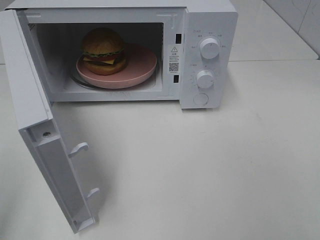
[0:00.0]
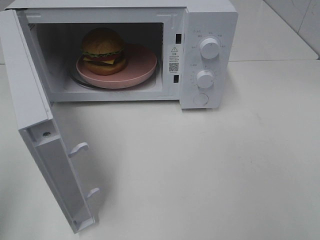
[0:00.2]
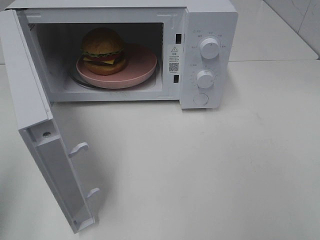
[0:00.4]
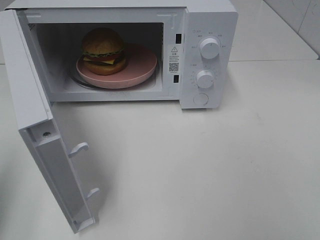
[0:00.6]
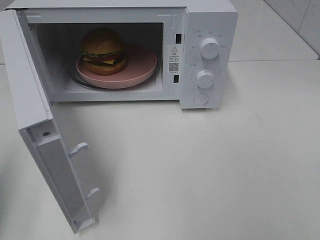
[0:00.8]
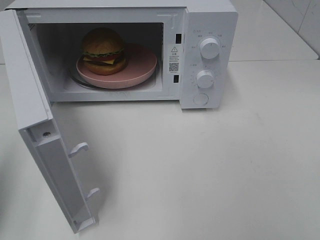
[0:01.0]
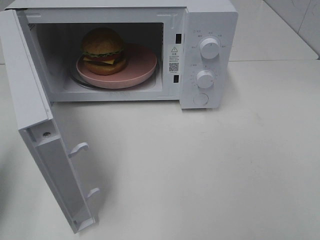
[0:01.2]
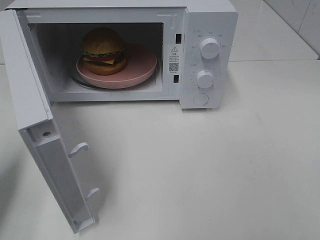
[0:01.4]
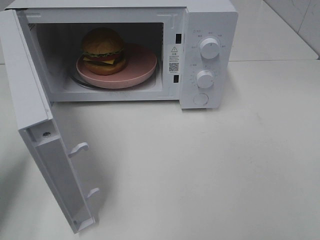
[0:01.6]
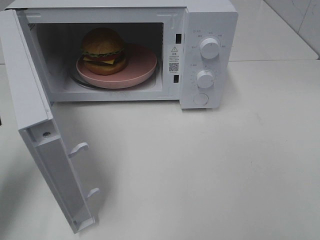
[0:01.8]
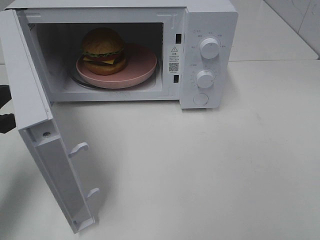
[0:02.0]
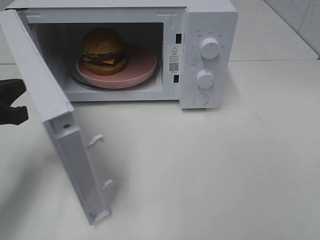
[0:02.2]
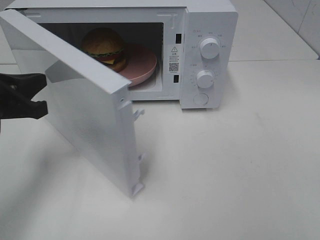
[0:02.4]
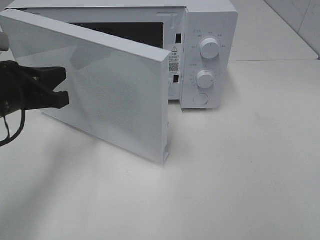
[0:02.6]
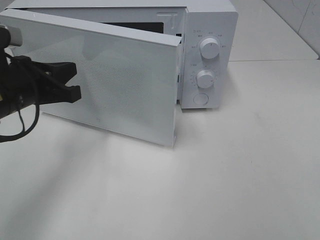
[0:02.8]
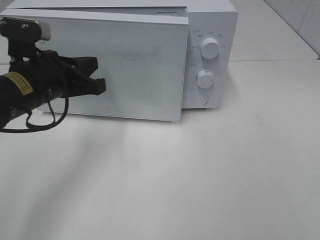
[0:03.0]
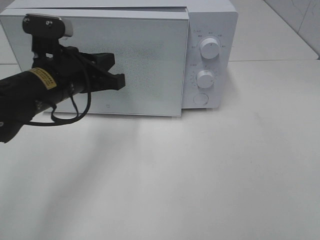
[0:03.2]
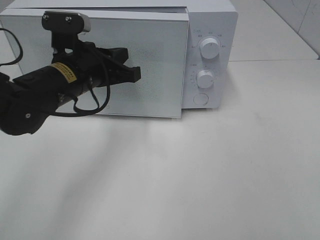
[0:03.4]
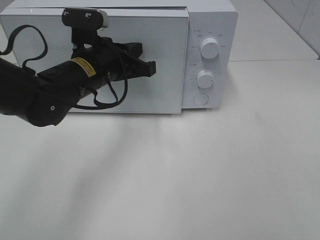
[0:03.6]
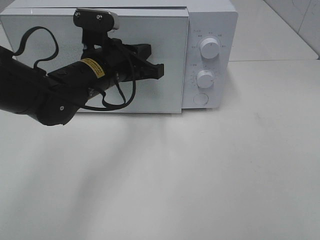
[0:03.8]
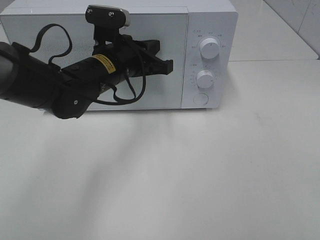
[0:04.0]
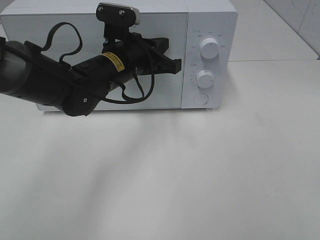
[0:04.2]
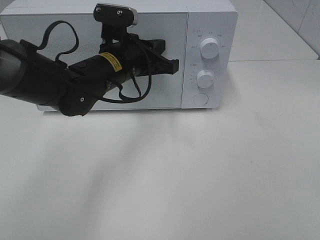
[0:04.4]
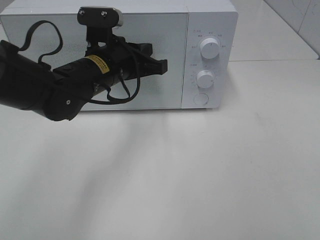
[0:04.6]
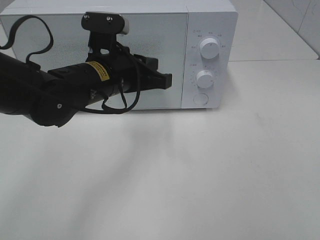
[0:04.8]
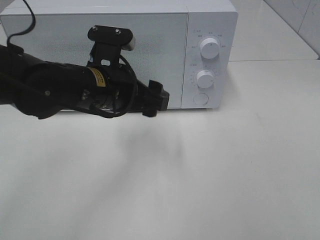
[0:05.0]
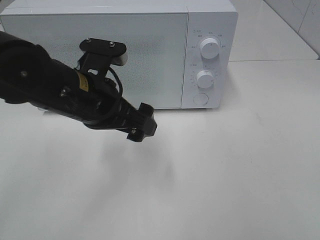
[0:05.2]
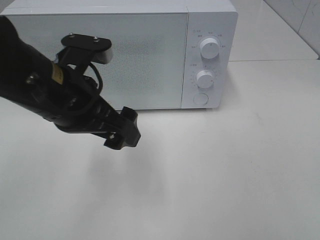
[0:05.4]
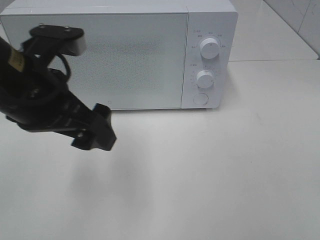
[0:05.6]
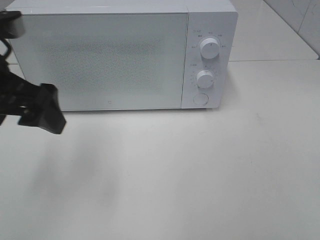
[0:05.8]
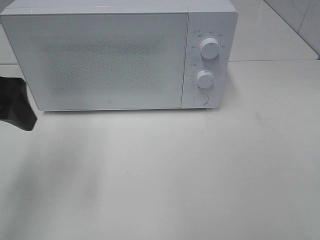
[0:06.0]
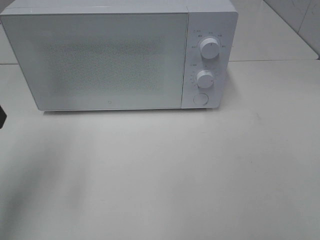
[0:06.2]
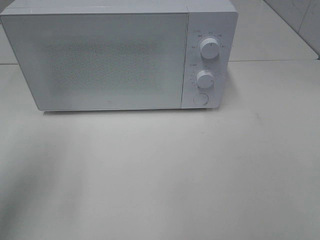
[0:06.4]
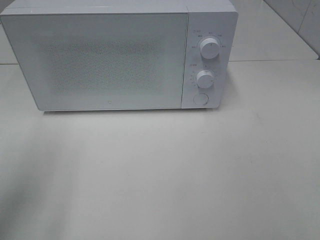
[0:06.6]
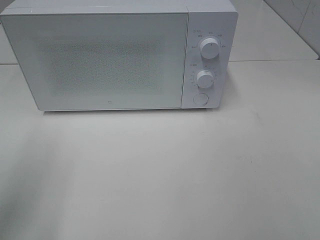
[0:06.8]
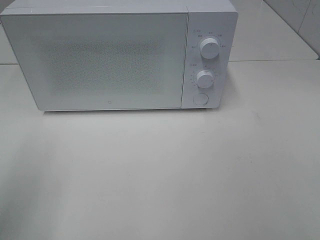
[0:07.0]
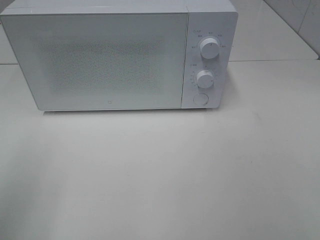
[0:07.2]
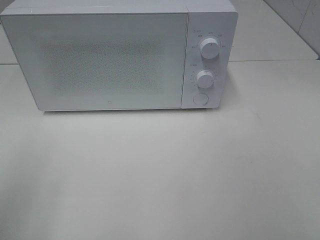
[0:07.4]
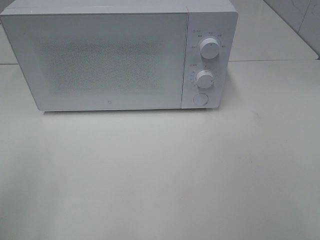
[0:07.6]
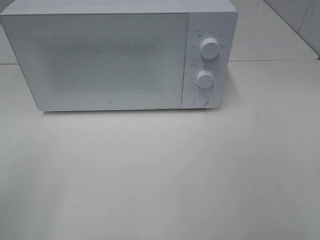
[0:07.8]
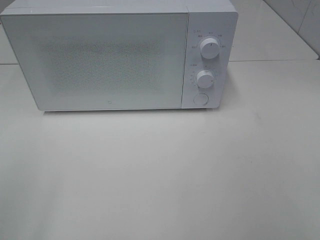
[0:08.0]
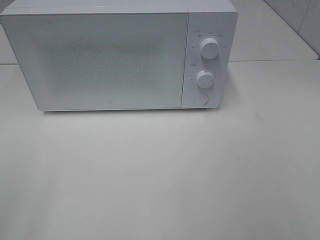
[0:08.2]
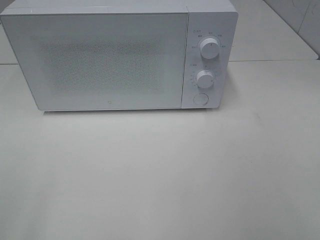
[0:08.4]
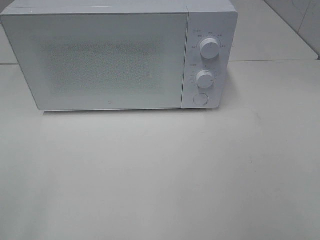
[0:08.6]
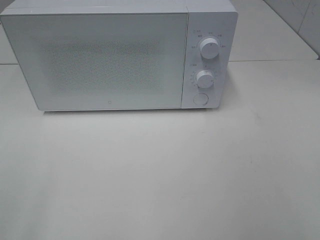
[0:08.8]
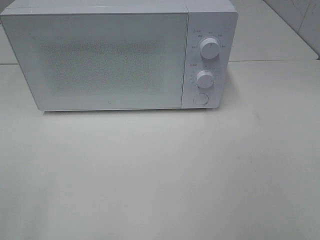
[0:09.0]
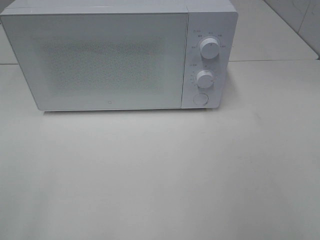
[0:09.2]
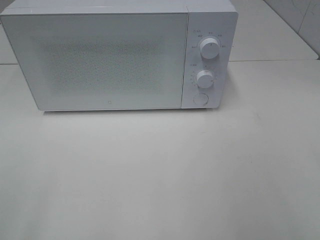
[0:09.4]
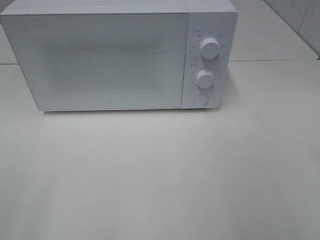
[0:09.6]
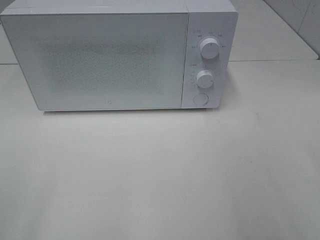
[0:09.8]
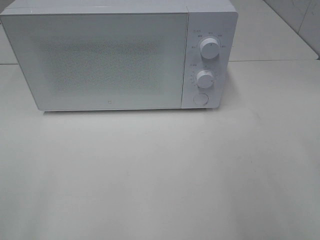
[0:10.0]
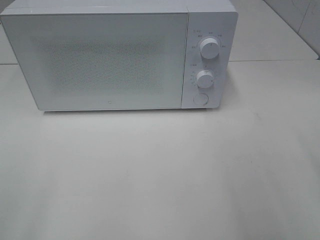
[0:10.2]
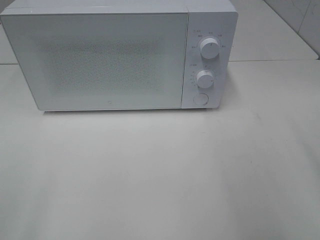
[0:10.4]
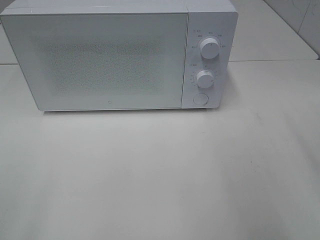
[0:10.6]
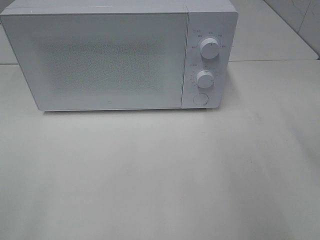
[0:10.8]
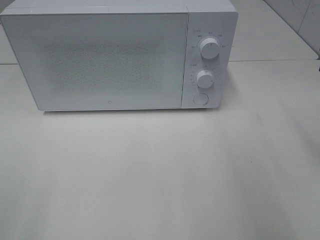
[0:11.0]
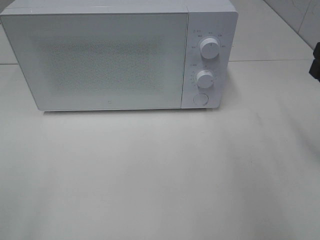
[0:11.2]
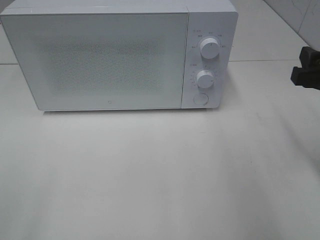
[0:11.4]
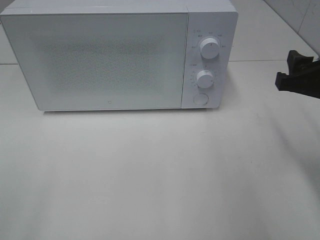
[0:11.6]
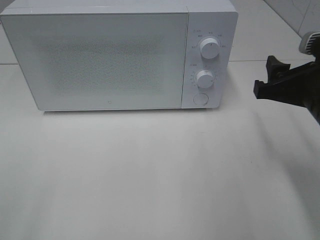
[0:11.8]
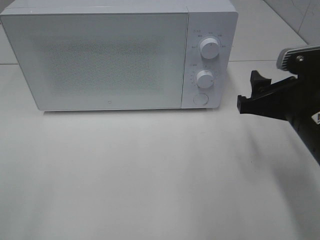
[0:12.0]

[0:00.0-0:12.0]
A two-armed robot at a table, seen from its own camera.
Task of the whole recording: Heat the burger.
Step, 0:00.0 to 0:04.6: Left hand: close the microwave door.
0:00.0 to 0:01.6: The left gripper shifts about 20 cm forward and downward.
0:01.6 to 0:03.0: The left gripper goes some 15 cm to the right and forward.
0:03.0 to 0:04.4: The left gripper moves to the right and forward, roughly 10 cm.
0:04.4 to 0:06.0: The left gripper goes approximately 25 cm to the left, backward and upward, and opens its fingers.
0:06.0 to 0:07.6: The left gripper shifts some 15 cm backward.
0:10.4 to 0:12.0: The right gripper moves to the left, downward and forward, some 15 cm.

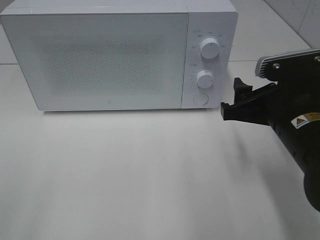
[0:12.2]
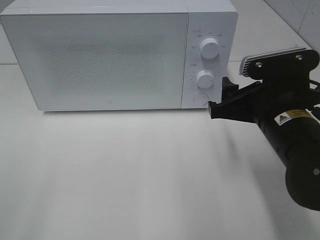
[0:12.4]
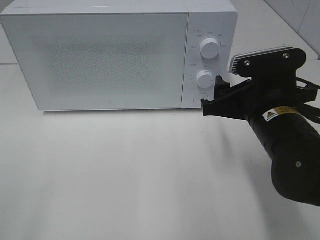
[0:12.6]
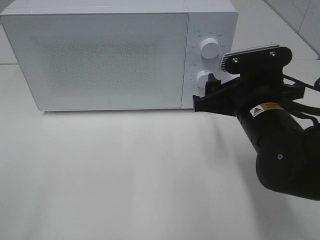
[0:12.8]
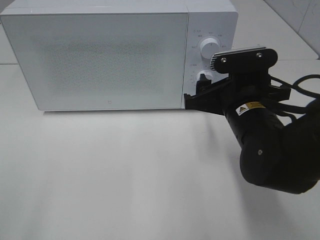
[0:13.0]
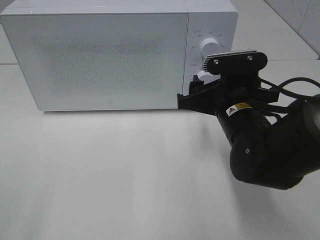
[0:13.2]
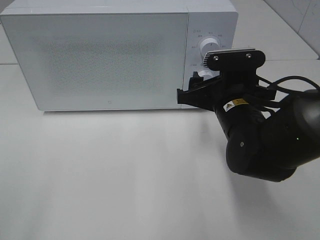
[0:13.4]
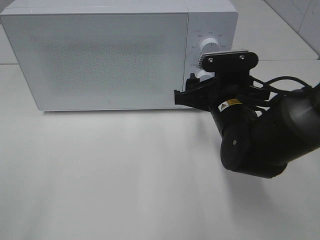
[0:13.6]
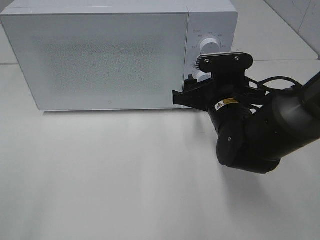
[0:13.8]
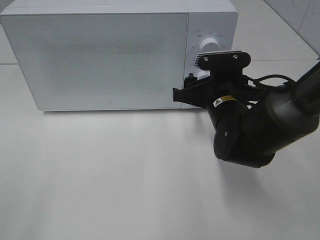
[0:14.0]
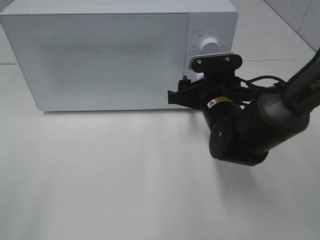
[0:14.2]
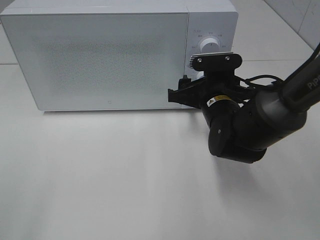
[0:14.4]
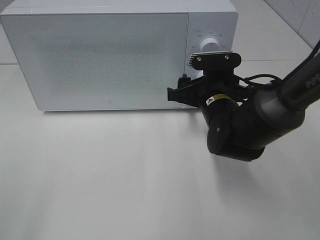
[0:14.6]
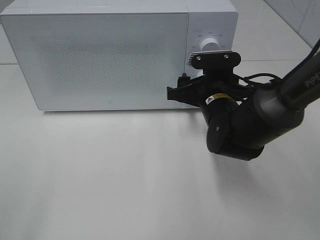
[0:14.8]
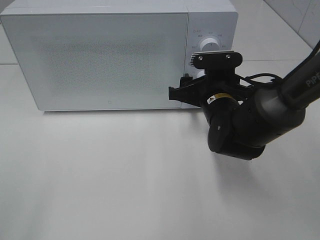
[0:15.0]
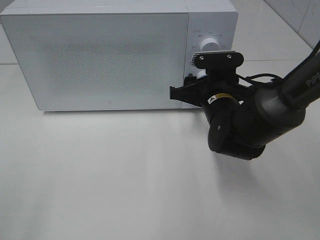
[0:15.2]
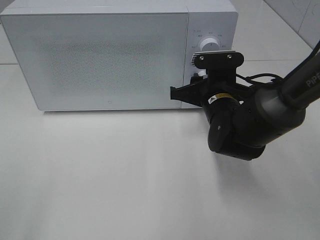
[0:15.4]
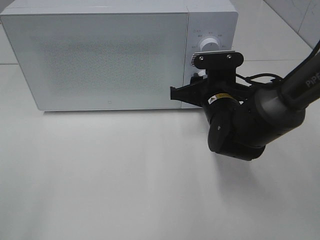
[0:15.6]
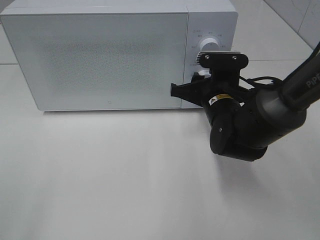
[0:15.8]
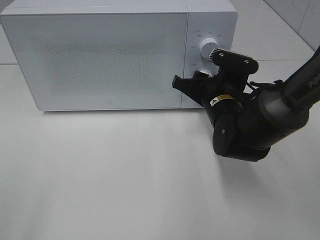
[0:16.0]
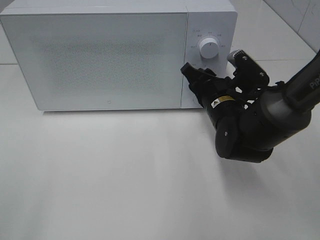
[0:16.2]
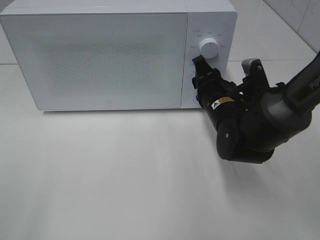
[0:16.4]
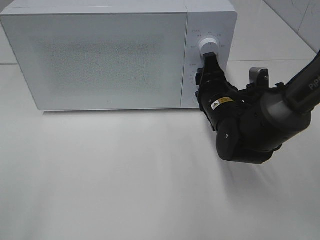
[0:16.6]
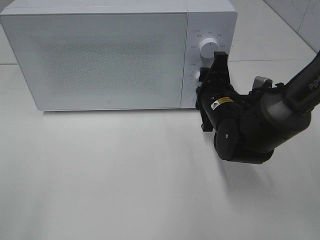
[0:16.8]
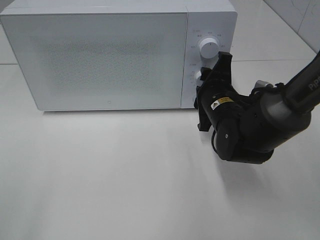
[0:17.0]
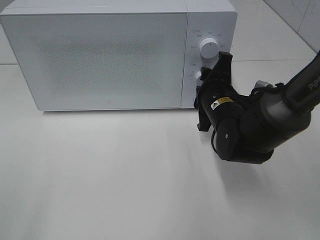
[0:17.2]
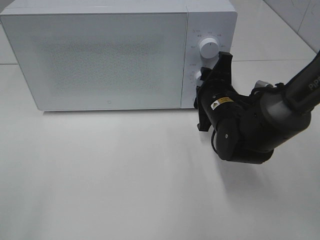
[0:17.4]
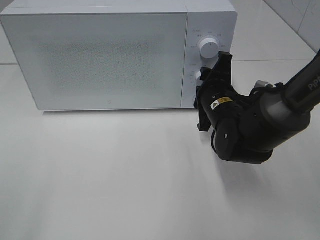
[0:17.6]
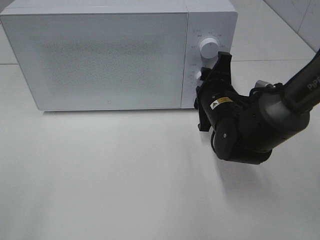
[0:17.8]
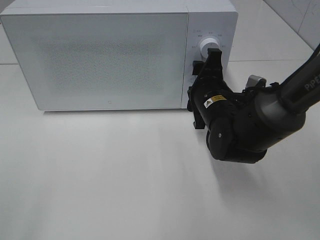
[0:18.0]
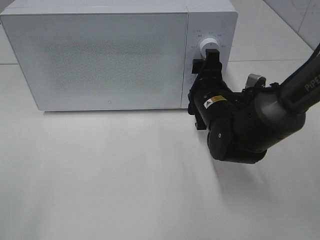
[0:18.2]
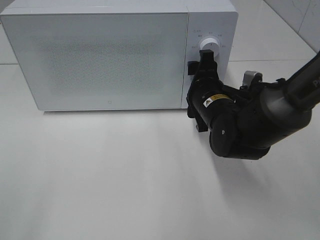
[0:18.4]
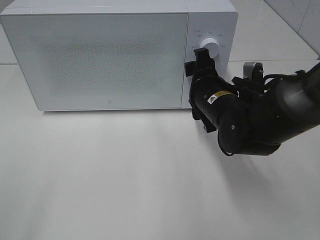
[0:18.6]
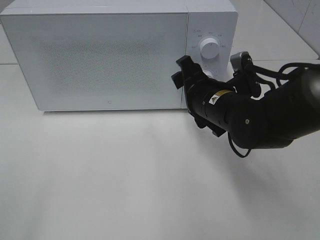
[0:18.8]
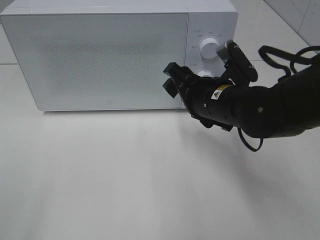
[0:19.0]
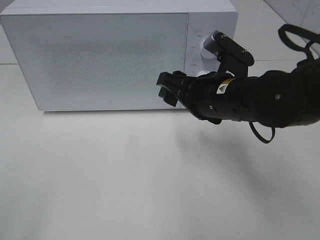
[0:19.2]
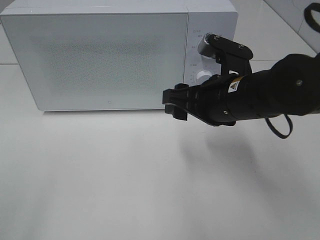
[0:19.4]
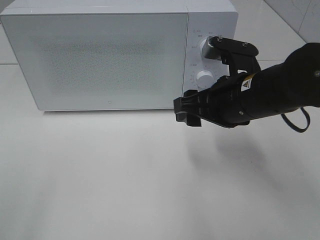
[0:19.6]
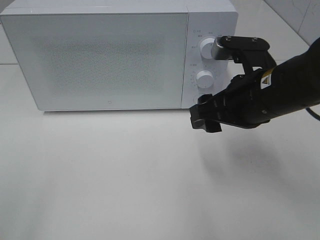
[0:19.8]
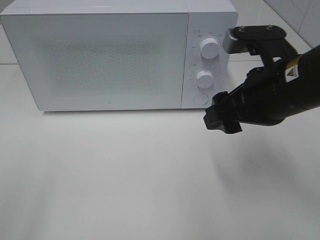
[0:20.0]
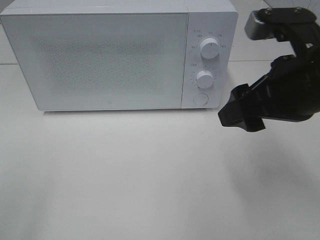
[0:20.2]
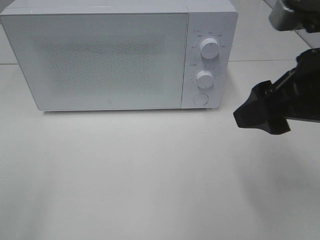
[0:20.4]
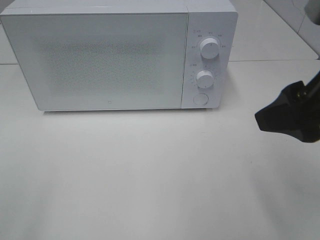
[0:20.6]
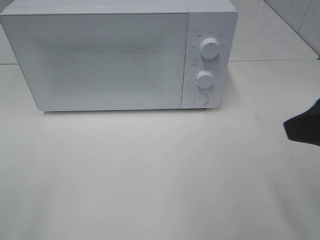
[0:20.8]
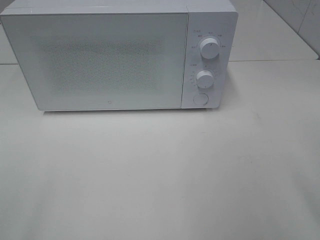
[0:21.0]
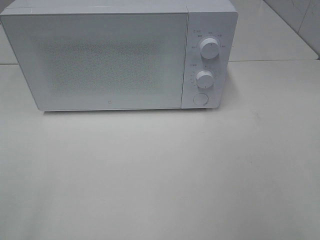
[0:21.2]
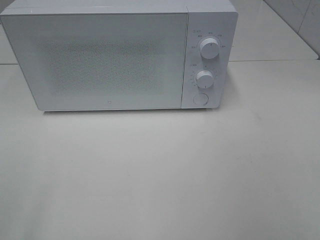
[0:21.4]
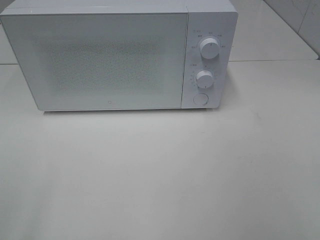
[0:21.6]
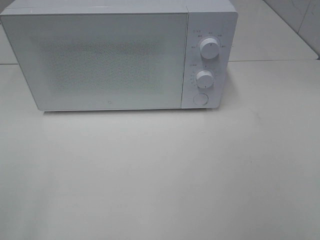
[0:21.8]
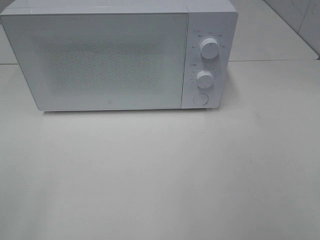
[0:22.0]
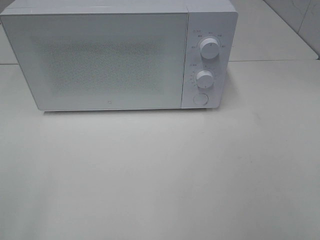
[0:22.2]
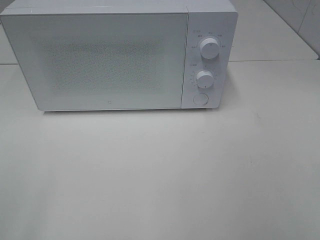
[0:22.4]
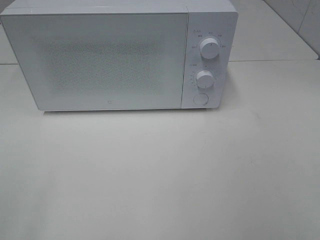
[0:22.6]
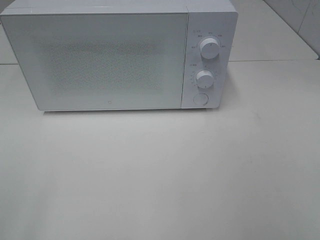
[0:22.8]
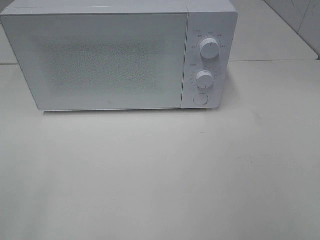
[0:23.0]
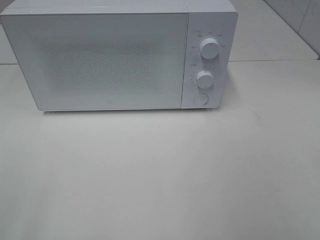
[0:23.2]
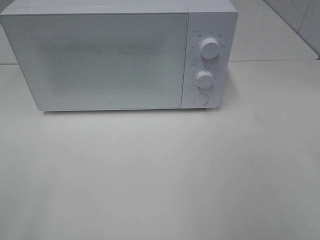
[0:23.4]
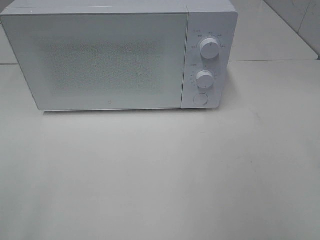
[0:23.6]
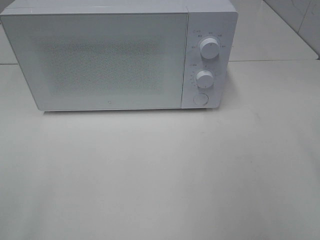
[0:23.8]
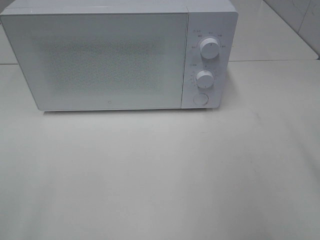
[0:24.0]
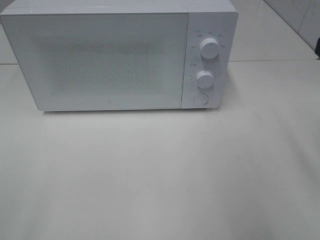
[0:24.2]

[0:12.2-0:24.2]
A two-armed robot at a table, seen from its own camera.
Task of the whole recording: Heat the burger.
Step, 0:12.2 to 0:18.0: Right hand: twist timer button.
0:12.2 to 0:13.8: The right gripper is displaced forward, to the left and downward by some 10 cm.
0:13.8 to 0:15.2: The grippers make only small movements.
0:18.2 to 0:19.8: The right gripper heads upward and backward, covering about 10 cm.
0:19.8 to 0:21.2: The right gripper is displaced backward, to the right and upward by approximately 25 cm.
